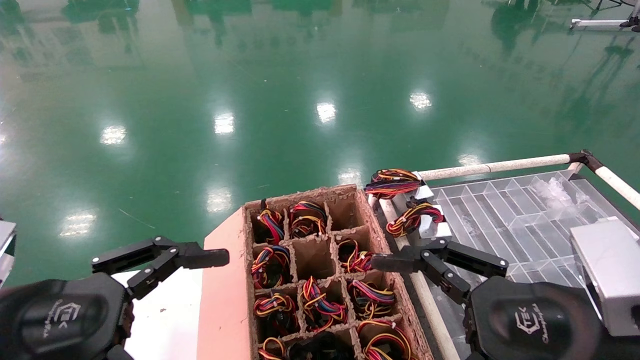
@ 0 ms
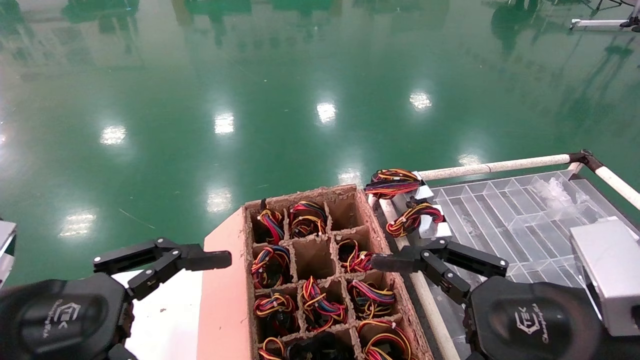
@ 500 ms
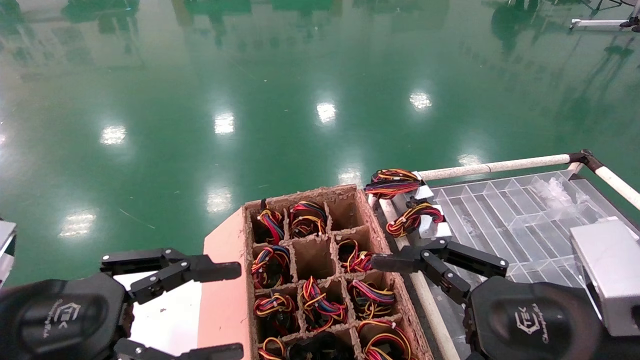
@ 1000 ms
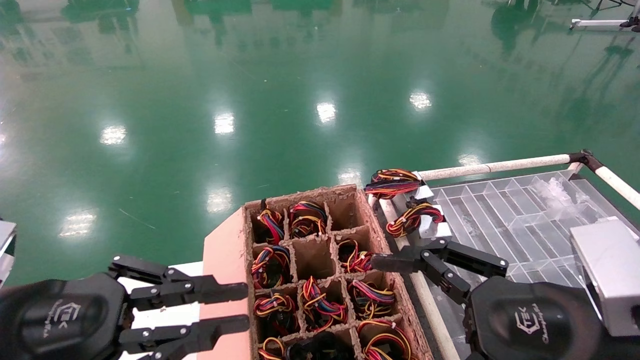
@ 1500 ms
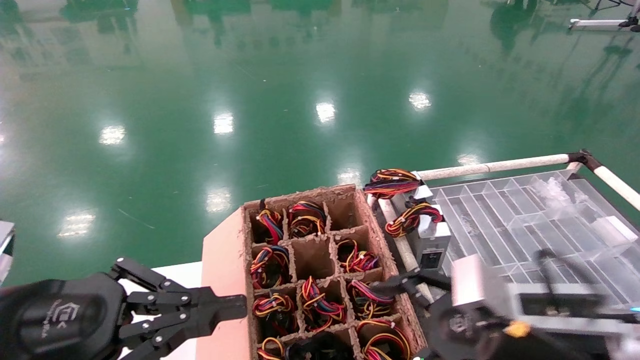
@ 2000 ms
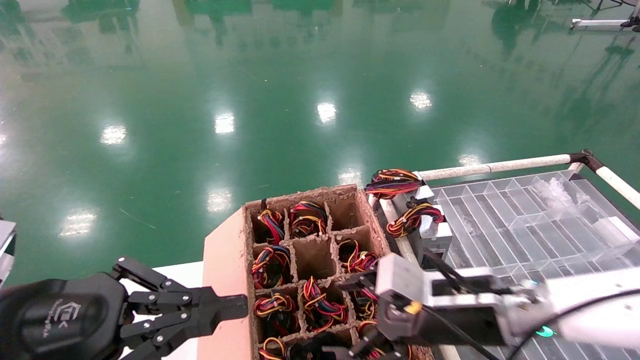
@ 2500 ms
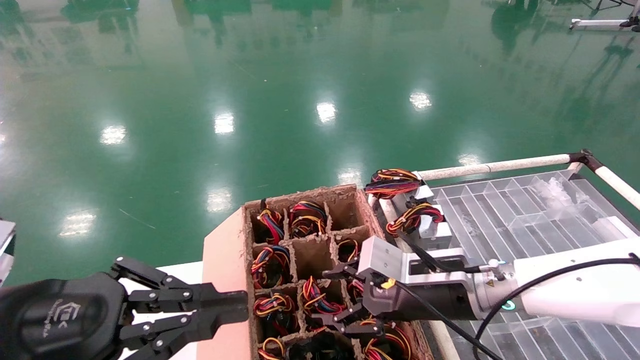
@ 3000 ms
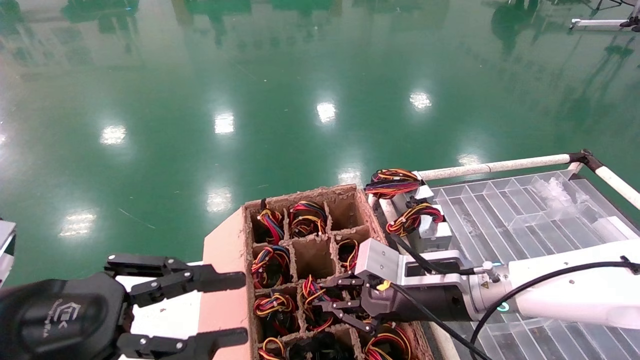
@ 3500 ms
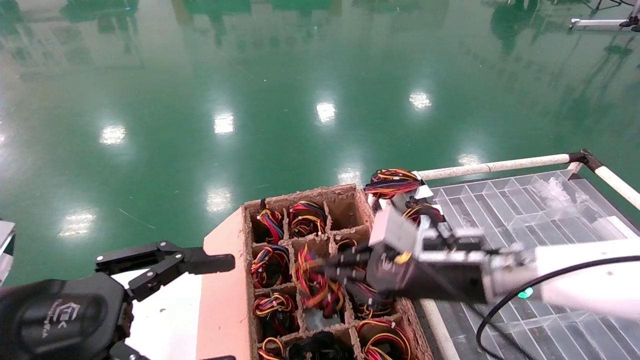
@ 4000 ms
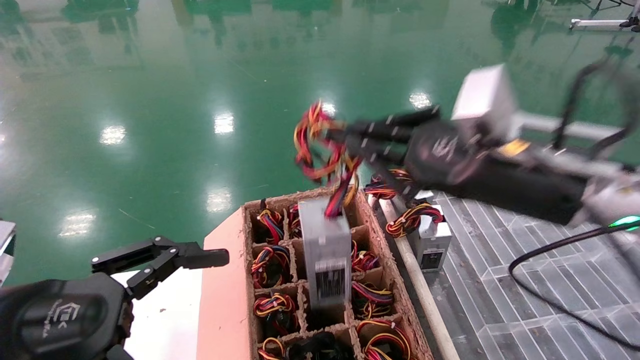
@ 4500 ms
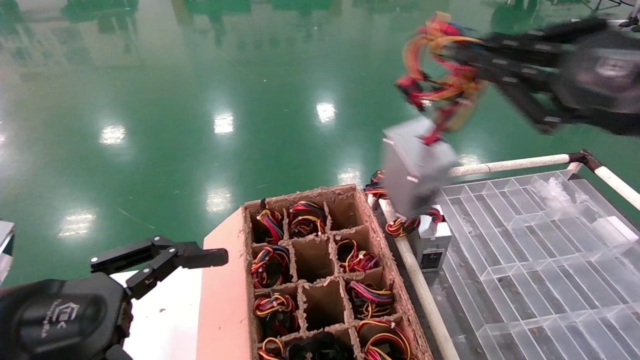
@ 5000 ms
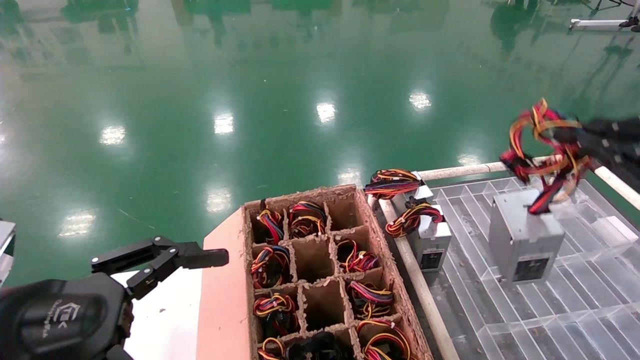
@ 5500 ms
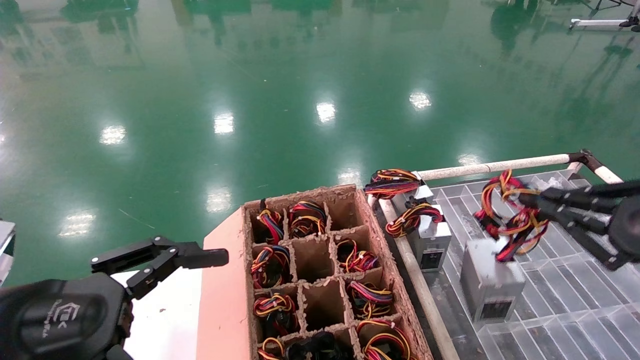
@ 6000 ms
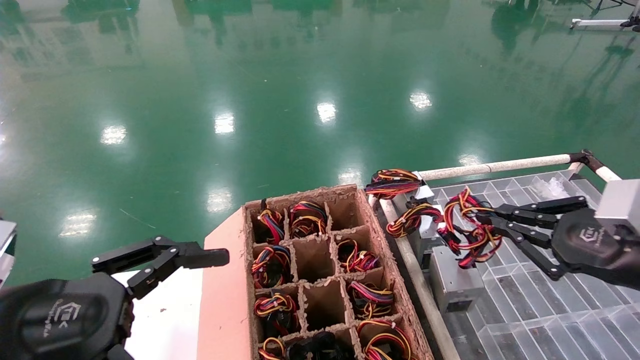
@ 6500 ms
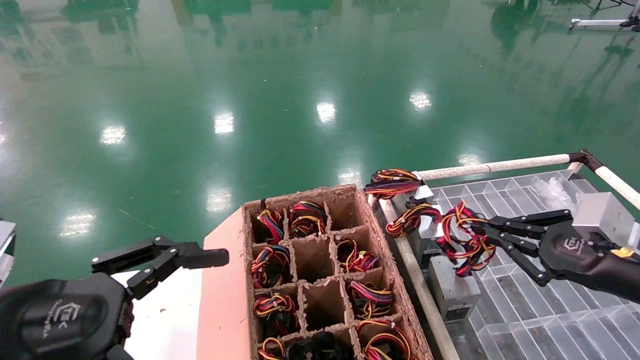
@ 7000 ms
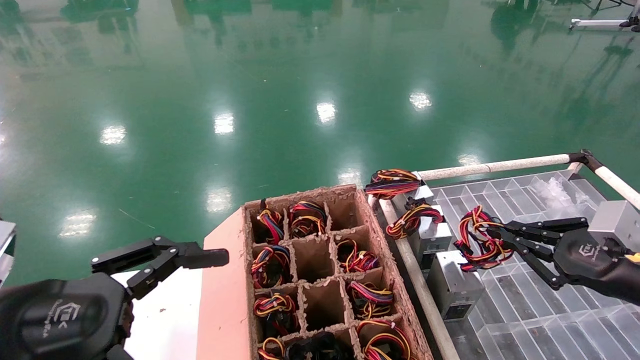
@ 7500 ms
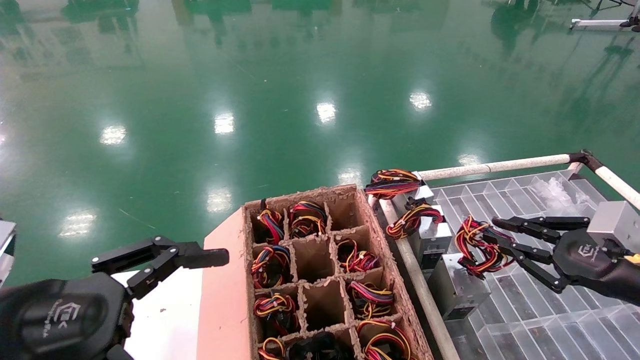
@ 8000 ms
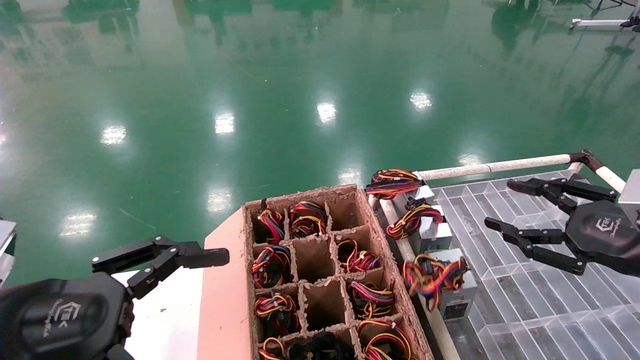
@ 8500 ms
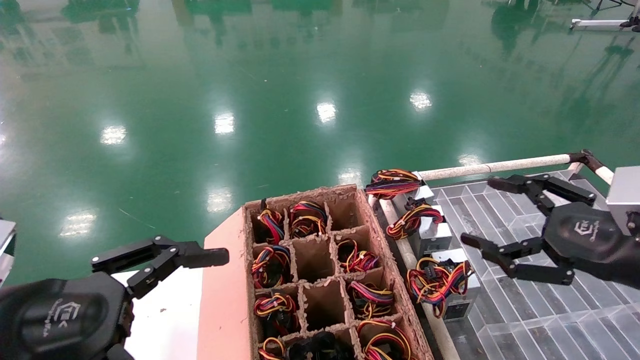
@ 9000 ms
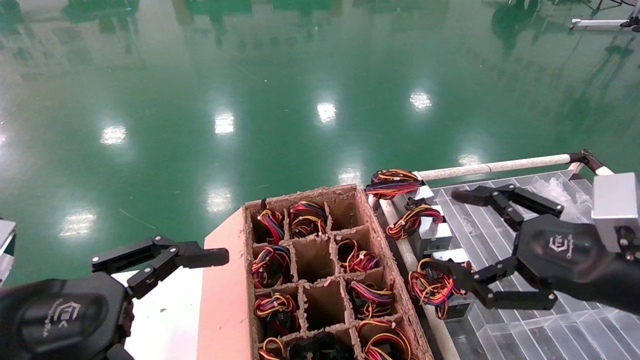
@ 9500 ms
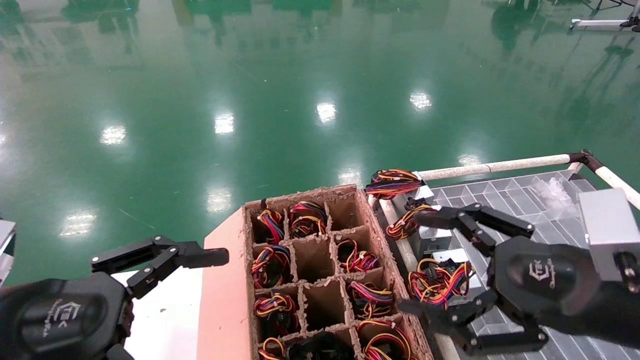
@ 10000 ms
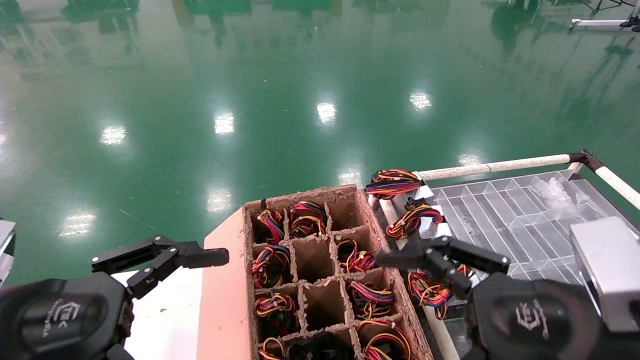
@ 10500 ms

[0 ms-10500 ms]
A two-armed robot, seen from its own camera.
Step, 2000 ms to 3500 ms: Grab and lift the power supply from the large box.
Step, 4000 ms to 7500 ms: Place the power supply on the operating table.
0 ms to 2000 ms: The left gripper closes, while the right gripper shifts roughly 5 cm forward.
2000 ms to 4000 ms: The left gripper opens, while the right gripper shifts some 10 cm forward and to the left, and closes its fingers.
4000 ms to 6500 ms: The right gripper travels to the right by some 20 cm.
6500 ms to 8500 ms: The right gripper opens up.
8500 ms to 10500 ms: The right gripper heads to the left and backward, covering roughly 15 cm, and opens.

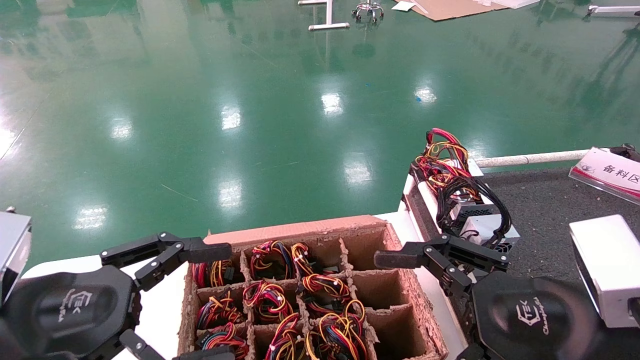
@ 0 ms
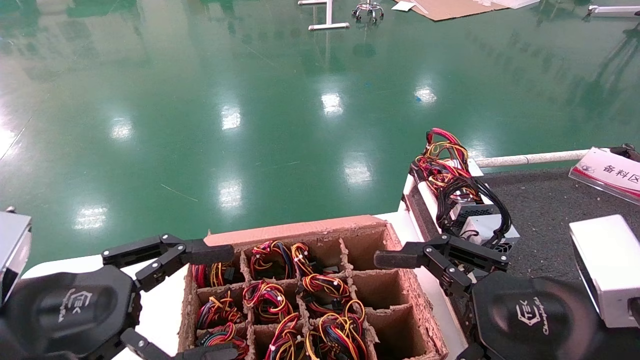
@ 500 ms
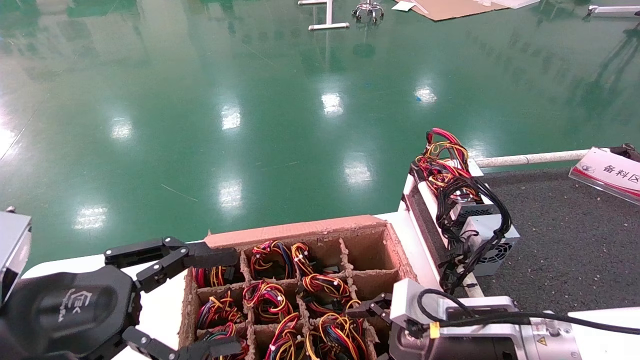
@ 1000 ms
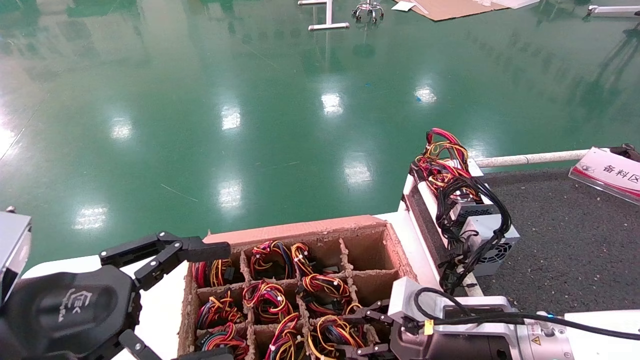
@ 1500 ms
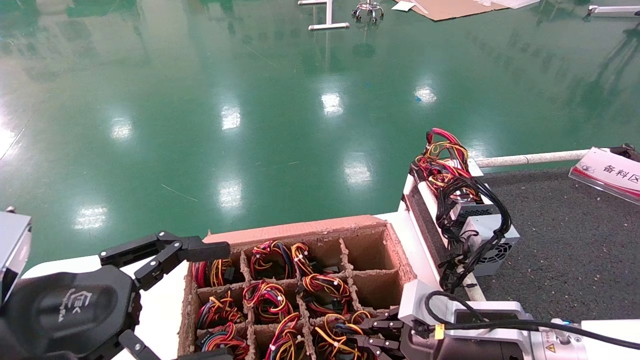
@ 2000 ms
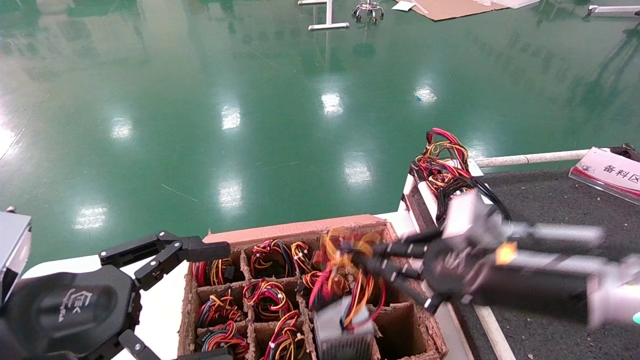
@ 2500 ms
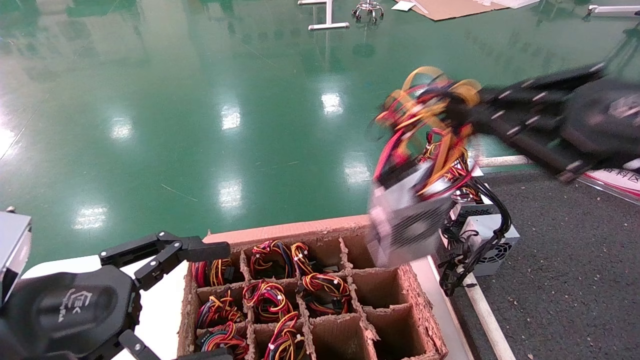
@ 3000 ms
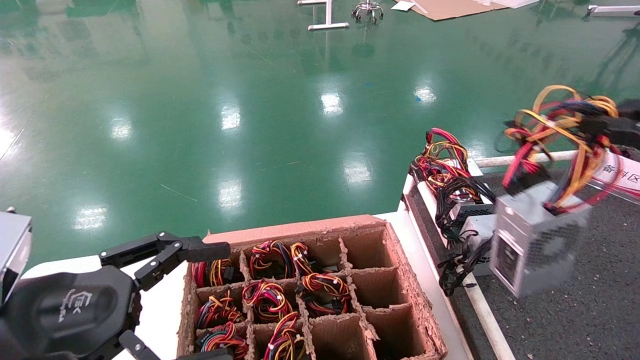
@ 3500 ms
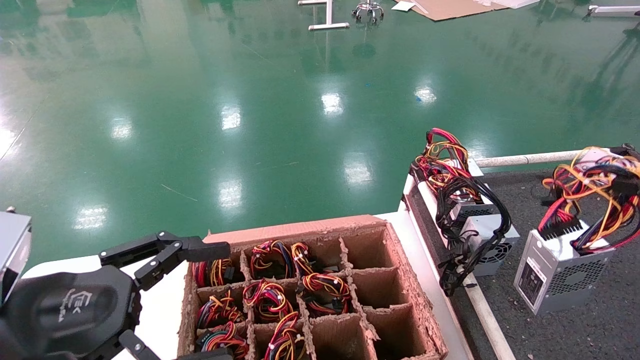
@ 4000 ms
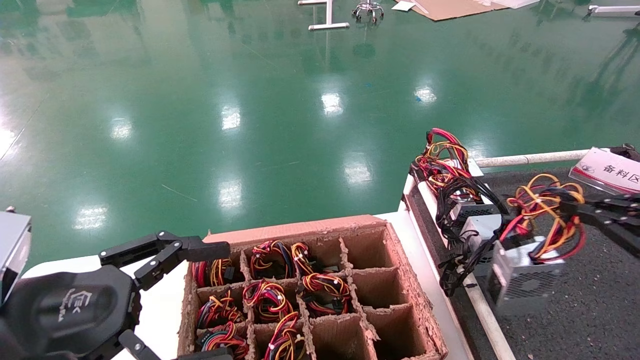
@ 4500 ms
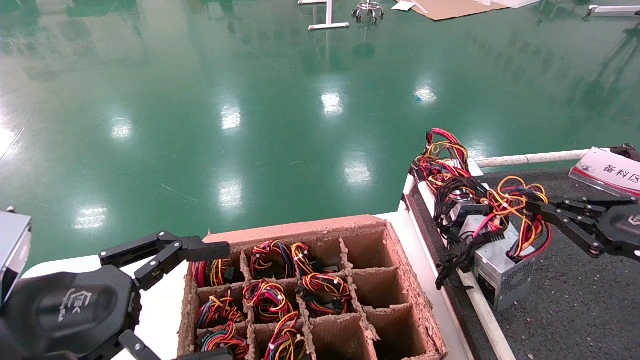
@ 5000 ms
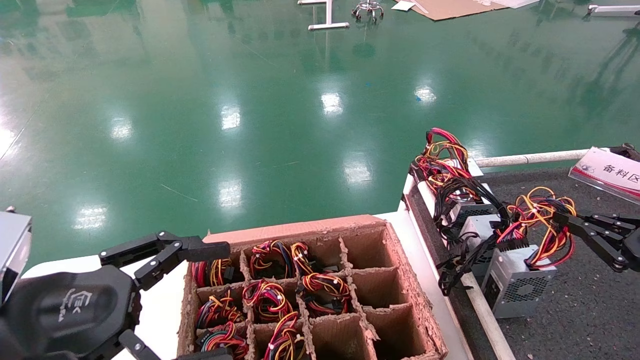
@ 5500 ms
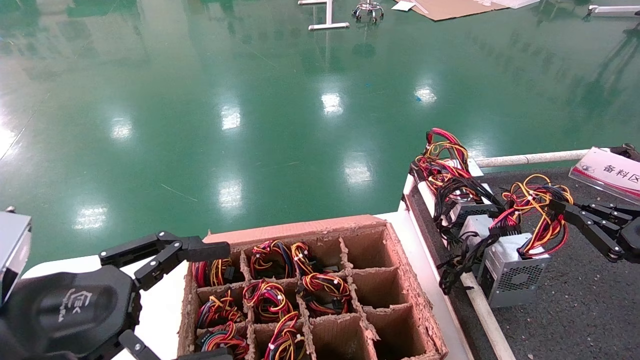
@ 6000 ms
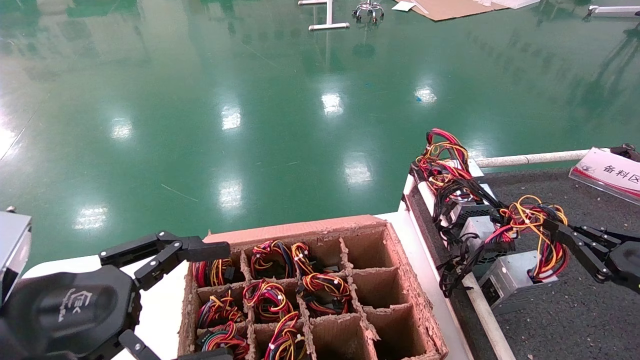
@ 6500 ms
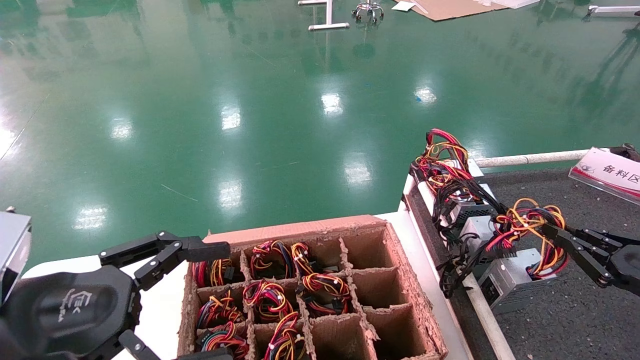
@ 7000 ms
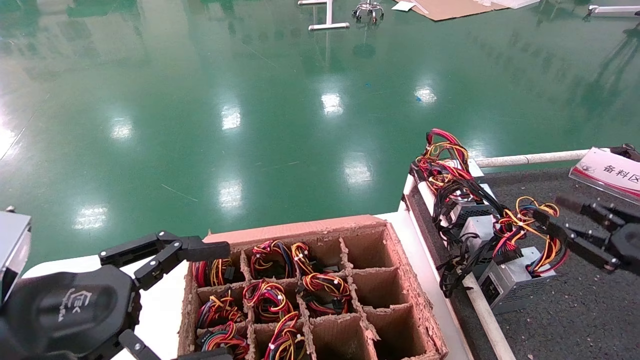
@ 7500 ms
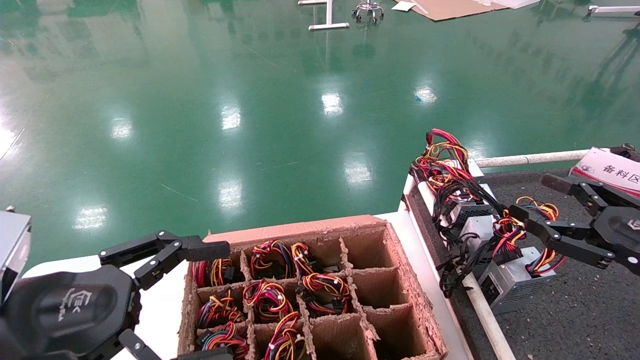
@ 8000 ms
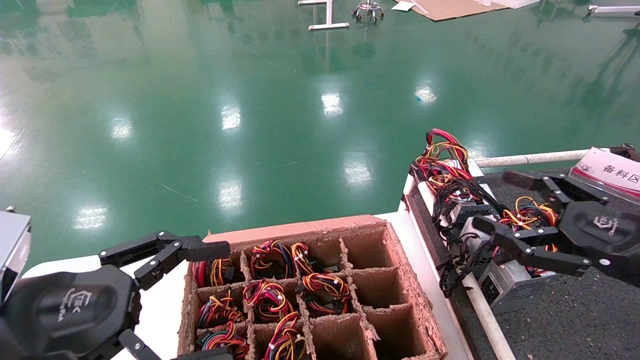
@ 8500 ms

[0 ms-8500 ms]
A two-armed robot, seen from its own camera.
Step, 2500 ms to 4500 ms: Grab and lift the power supply from the large box.
Step, 5000 ms to 8500 ms: Place the power supply on the operating table.
0 ms to 2000 ms: The left gripper closes its fingers.
2000 ms to 4000 ms: The right gripper is displaced forward and downward by about 15 cm, and closes; the left gripper opens up.
4000 ms to 6500 ms: The right gripper travels to the right and upward by some 30 cm.
6500 ms to 8500 ms: The right gripper moves downward and forward, about 15 cm.
